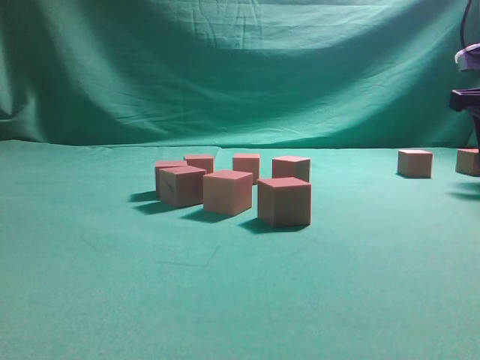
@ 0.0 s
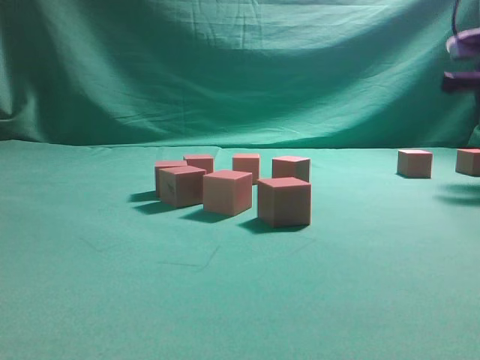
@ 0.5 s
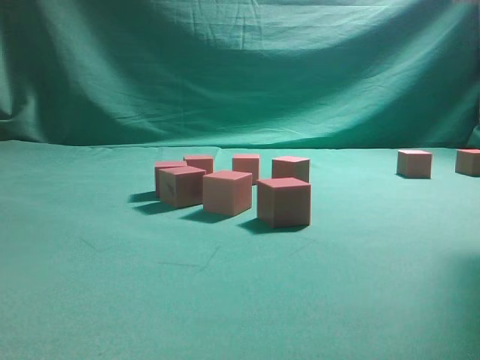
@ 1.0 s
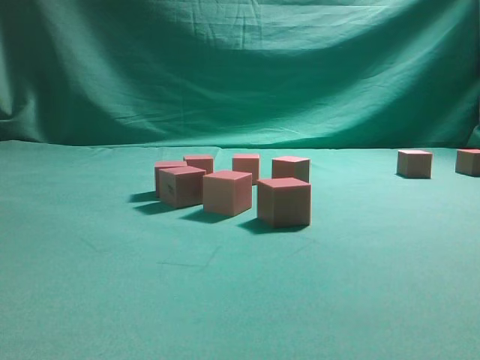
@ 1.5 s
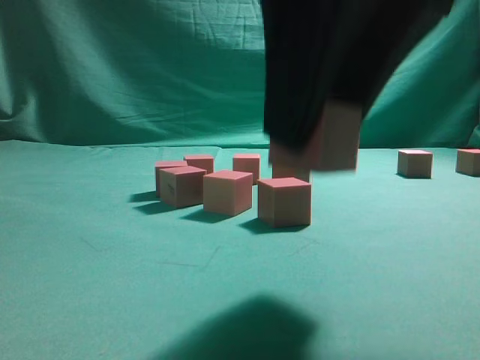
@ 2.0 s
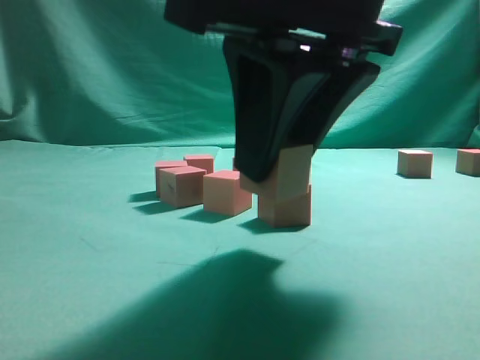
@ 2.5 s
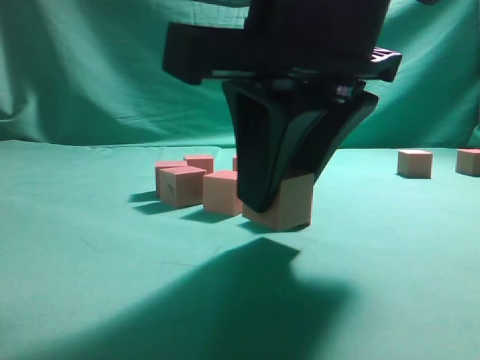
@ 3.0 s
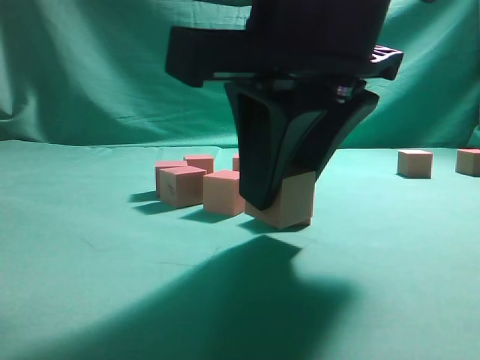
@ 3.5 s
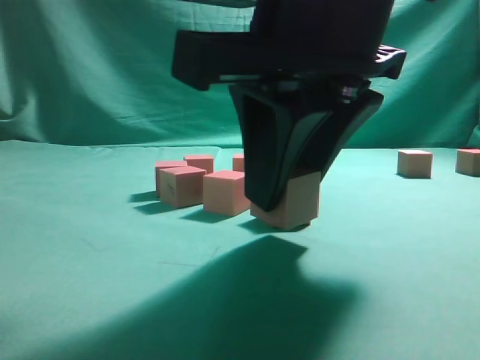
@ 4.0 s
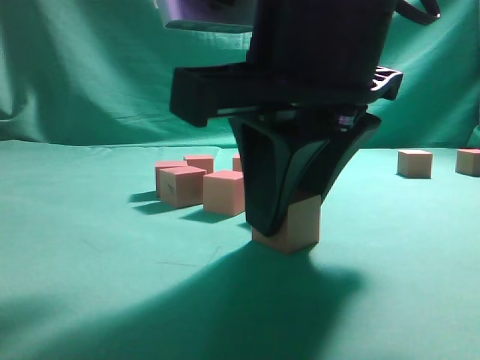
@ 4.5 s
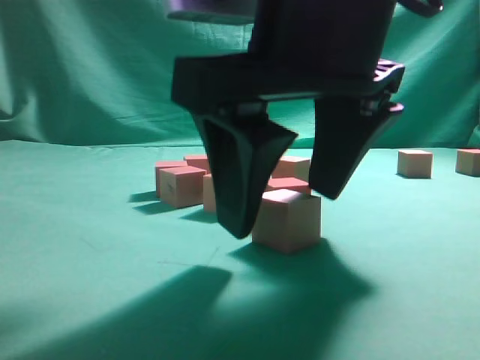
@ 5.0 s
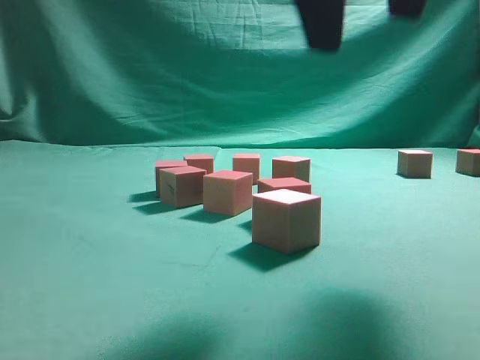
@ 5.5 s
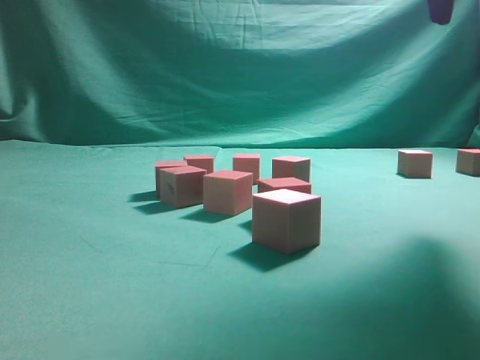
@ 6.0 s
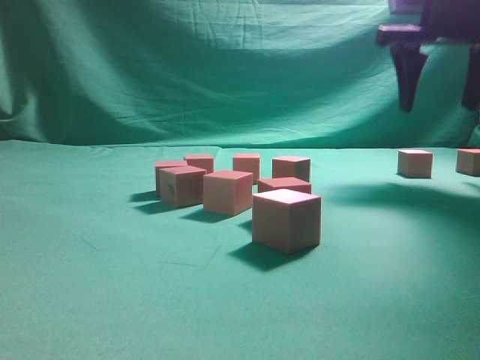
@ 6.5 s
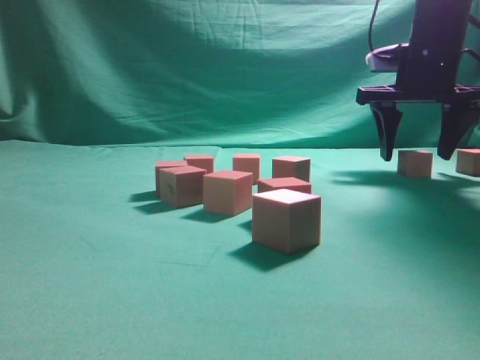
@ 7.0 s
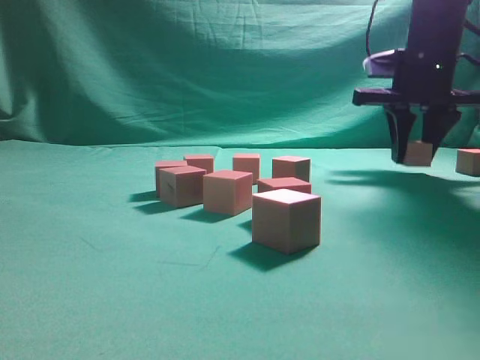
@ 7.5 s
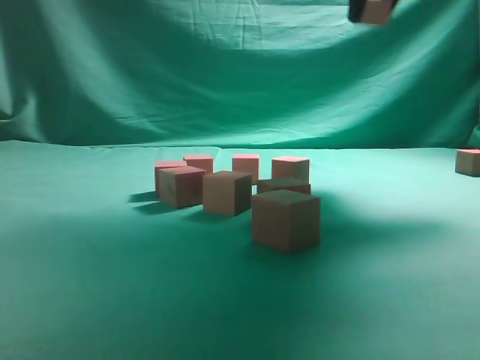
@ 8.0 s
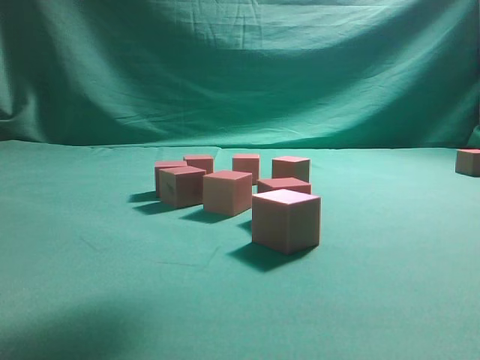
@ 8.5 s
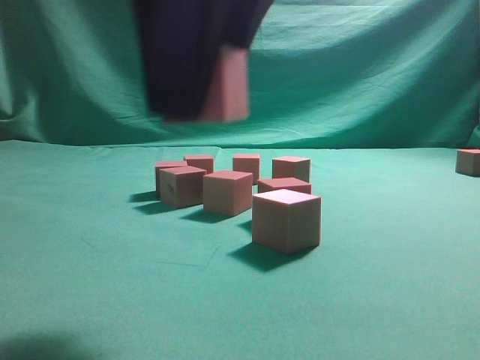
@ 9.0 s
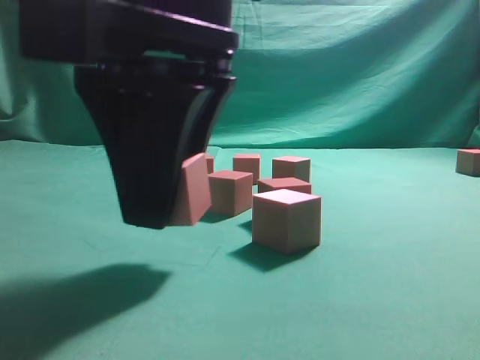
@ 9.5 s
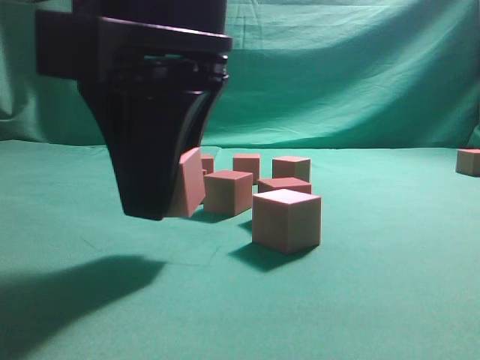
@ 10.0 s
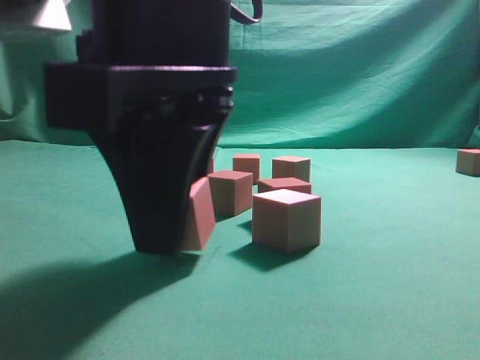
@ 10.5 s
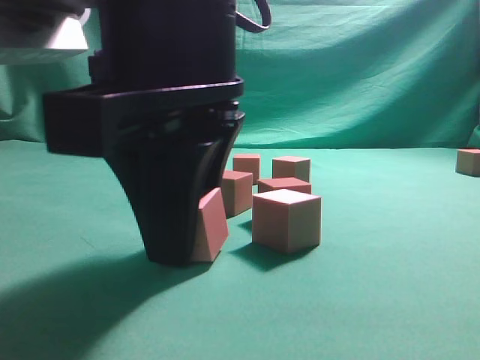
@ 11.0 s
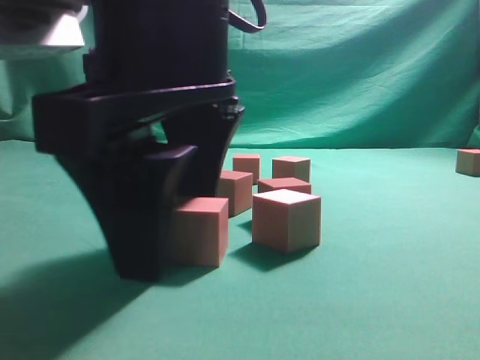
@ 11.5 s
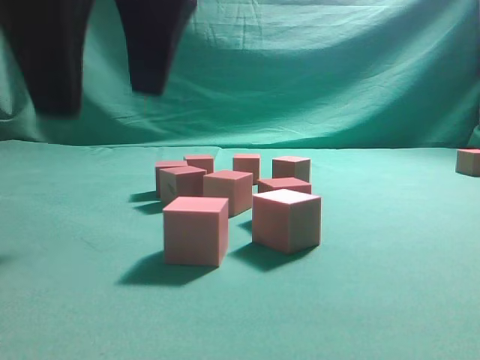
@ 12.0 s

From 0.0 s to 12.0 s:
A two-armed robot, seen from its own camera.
Task of the whole recording: pick up the multiple cubes in two columns one by one and place them in another position on the table.
Step, from 1.0 s to 5.0 s: Place the block at the correct position to assemble the letter S.
Step, from 5.5 s to 7.5 s: Pick up the block on the table.
Step, from 8.0 s to 12.0 s: Place the block at the correct position to assemble the letter S.
From 0.0 s to 2.0 s: The right gripper is displaced to the left and backward by about 35 cm.
From 4.0 s to 6.0 s: The right gripper moves to the right, upward and forward, about 20 cm, and opens its fingers.
From 6.0 s to 8.0 s: The right gripper moves forward, roughly 10 cm, travels downward and back again, roughly 15 cm each way, and closes its fingers.
From 8.0 s to 10.0 s: The right gripper is displaced backward, to the left and downward by roughly 35 cm.
From 10.0 s to 12.0 s: The right gripper heads upward, covering about 5 cm, and opens its fingers.

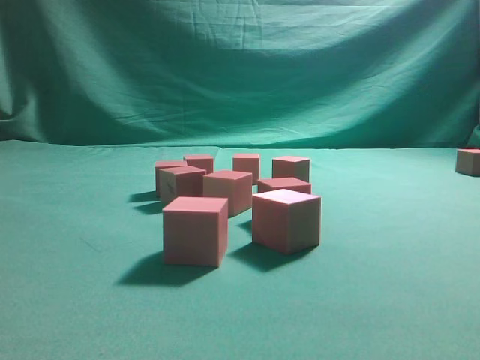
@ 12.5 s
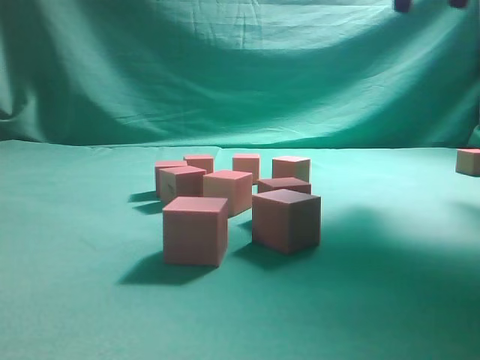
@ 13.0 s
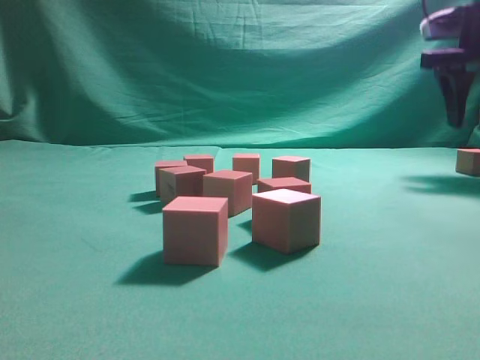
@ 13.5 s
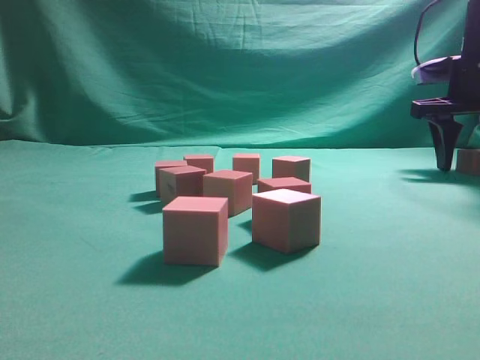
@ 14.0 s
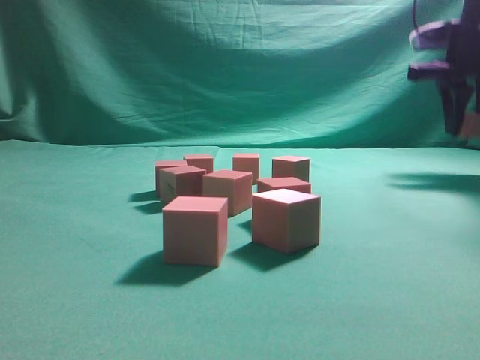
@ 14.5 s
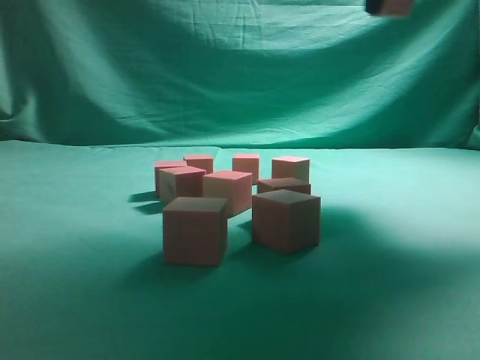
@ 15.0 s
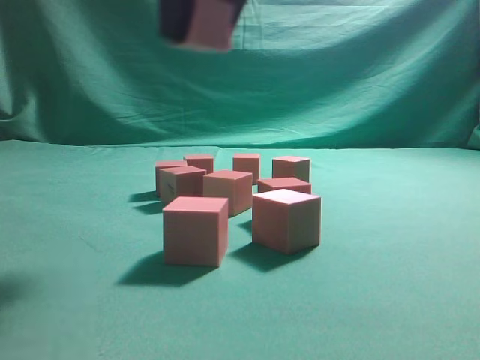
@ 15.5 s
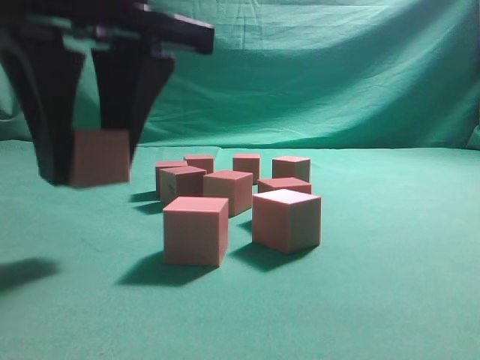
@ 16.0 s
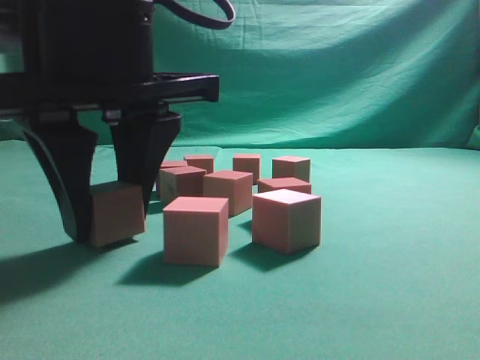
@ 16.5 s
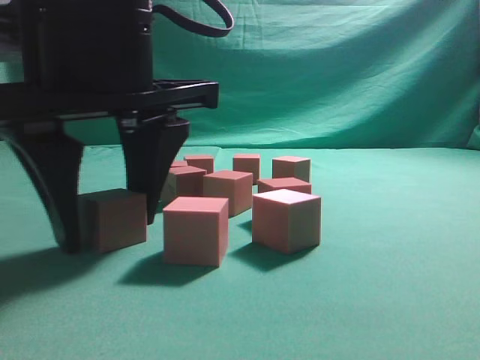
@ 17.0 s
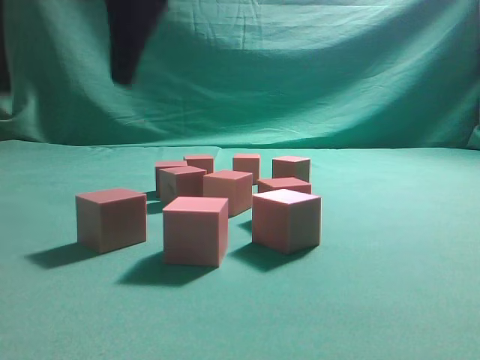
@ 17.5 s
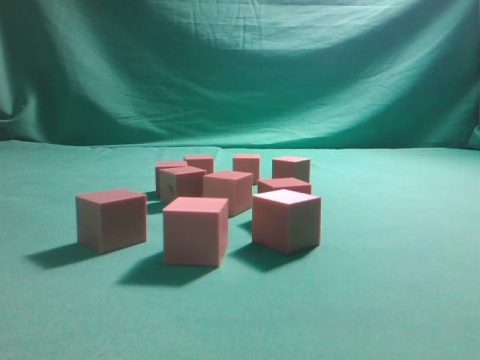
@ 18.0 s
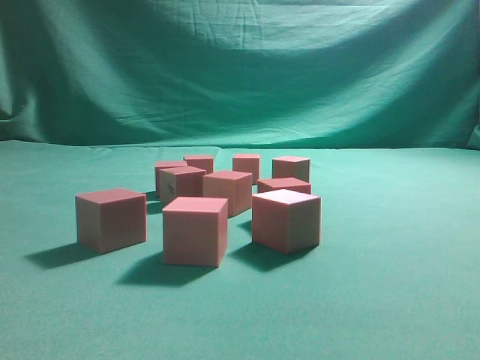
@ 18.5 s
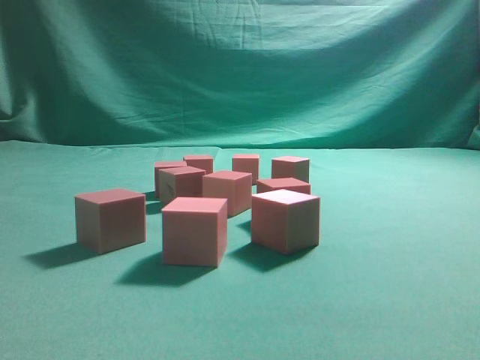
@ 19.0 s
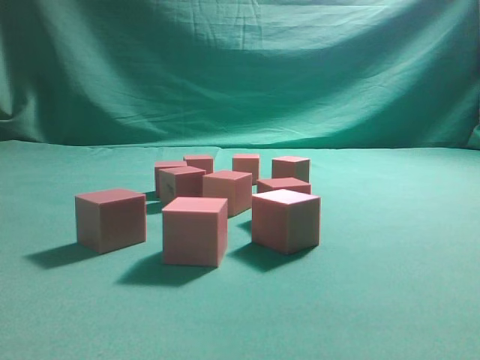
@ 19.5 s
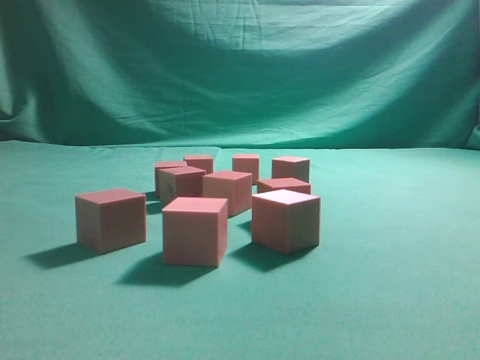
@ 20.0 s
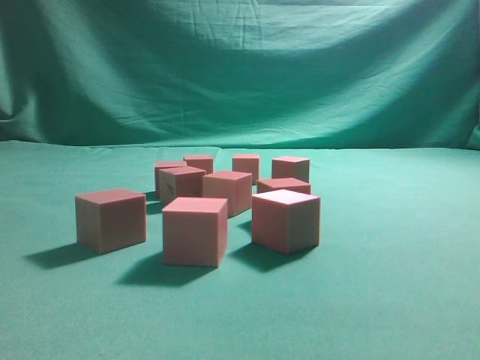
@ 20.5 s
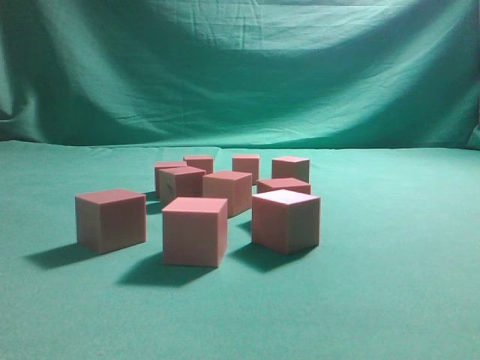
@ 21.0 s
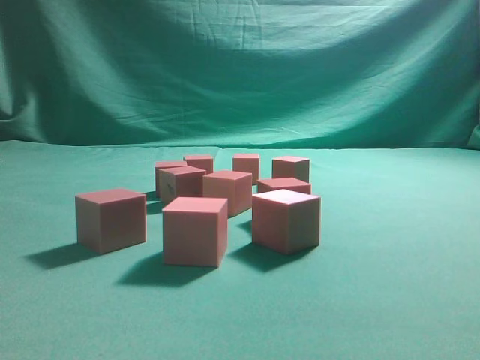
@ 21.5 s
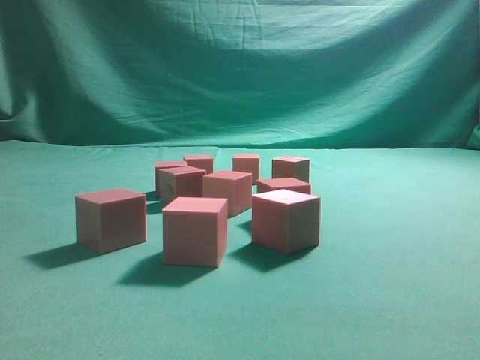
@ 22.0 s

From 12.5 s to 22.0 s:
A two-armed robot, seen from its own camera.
Task of the whole recording: pick up the multiple cubes in two columns one by one and place them in another position on the table.
Step, from 12.5 s to 14.5 s: Pick up the block on the table.
Step, from 15.0 s to 17.5 s: Place the block at the correct position to assemble the letter S.
From 12.5 s to 14.5 s: The right gripper moves to the right, forward and downward, approximately 35 cm, and closes.
From 14.5 s to 16.5 s: The right gripper travels to the left and backward by roughly 40 cm.
From 16.5 s to 18.0 s: The right gripper goes some 30 cm upward, and closes.
